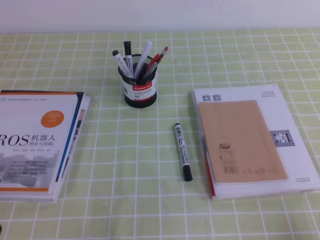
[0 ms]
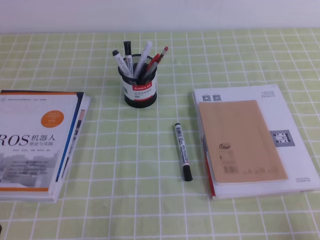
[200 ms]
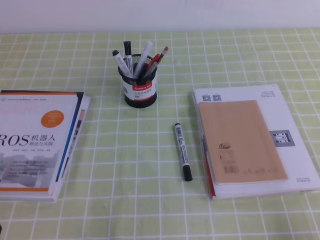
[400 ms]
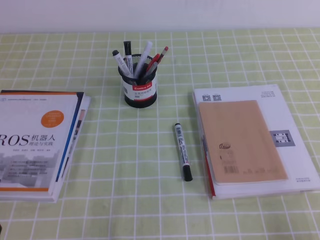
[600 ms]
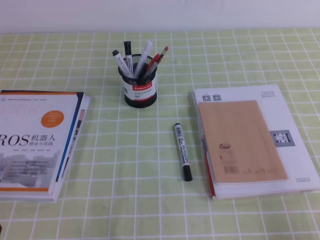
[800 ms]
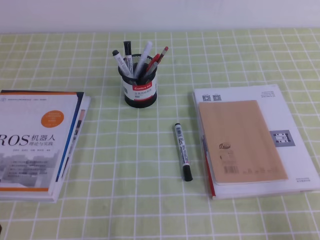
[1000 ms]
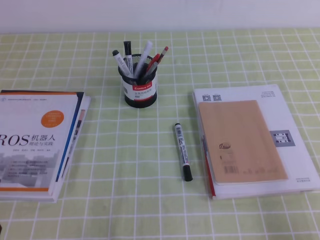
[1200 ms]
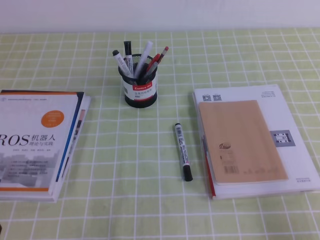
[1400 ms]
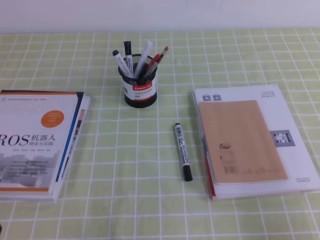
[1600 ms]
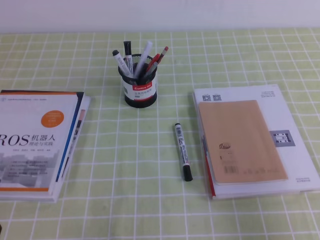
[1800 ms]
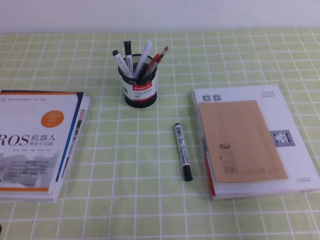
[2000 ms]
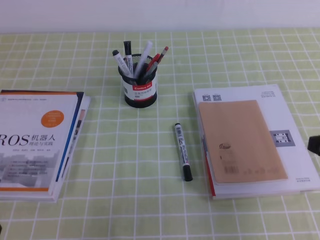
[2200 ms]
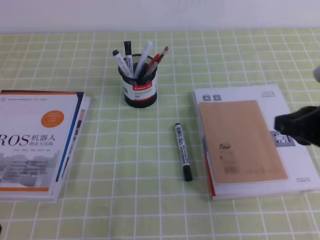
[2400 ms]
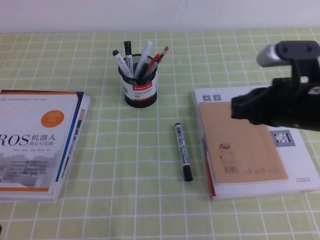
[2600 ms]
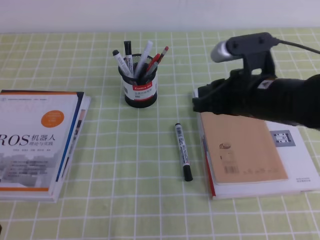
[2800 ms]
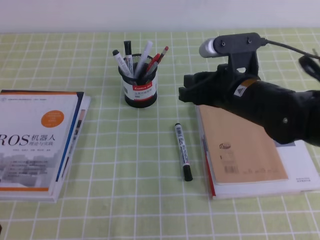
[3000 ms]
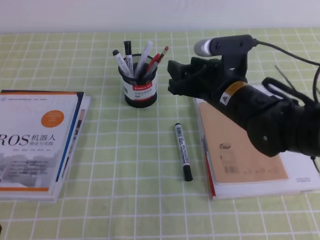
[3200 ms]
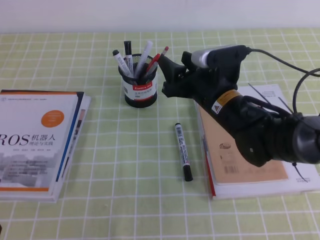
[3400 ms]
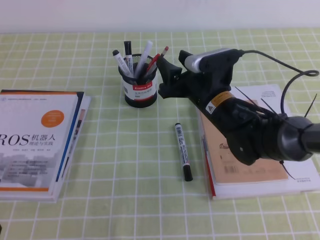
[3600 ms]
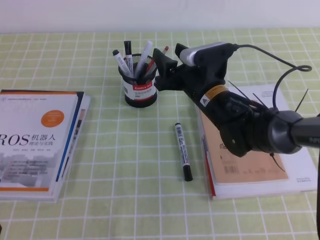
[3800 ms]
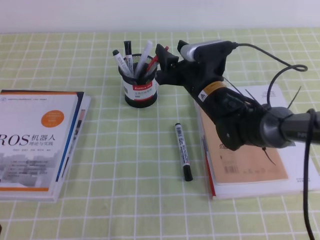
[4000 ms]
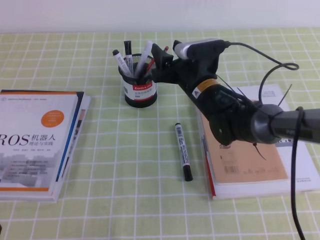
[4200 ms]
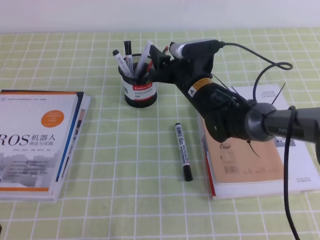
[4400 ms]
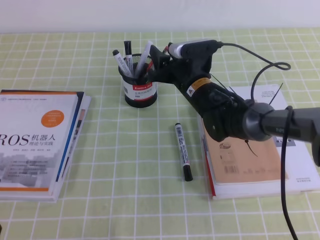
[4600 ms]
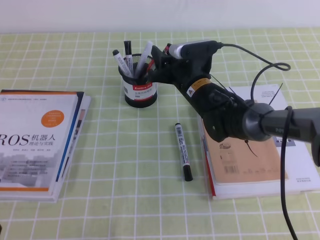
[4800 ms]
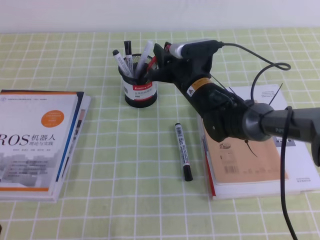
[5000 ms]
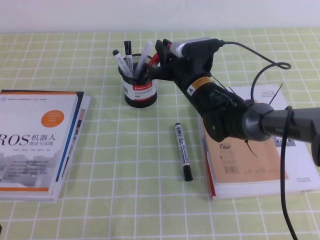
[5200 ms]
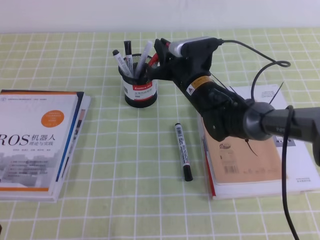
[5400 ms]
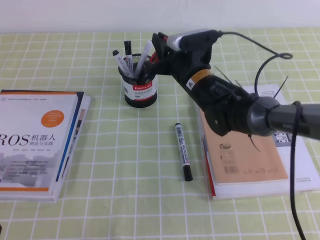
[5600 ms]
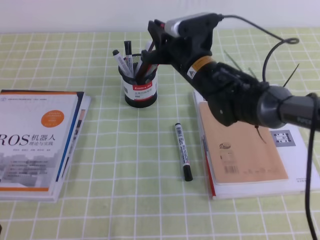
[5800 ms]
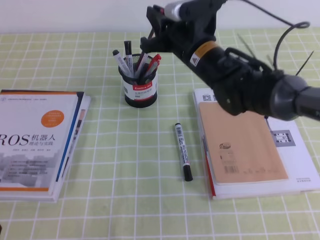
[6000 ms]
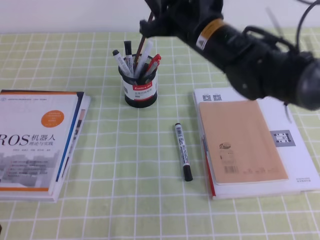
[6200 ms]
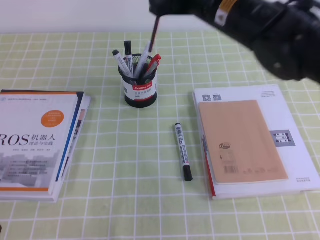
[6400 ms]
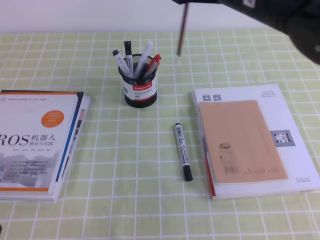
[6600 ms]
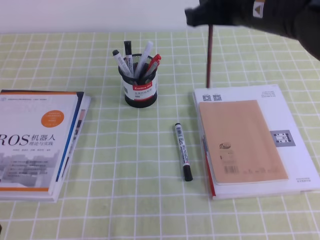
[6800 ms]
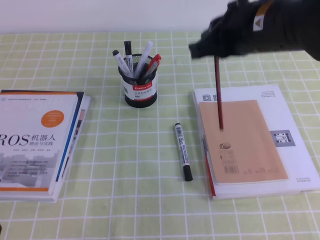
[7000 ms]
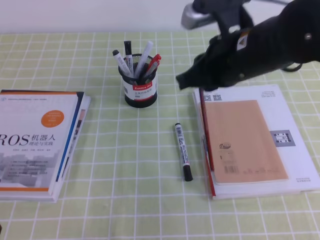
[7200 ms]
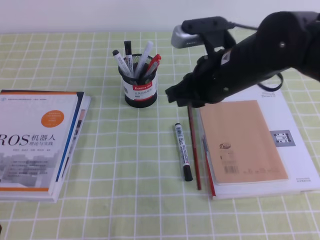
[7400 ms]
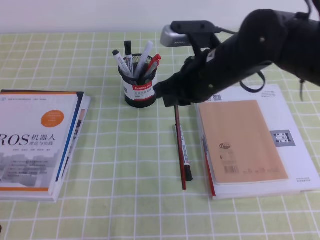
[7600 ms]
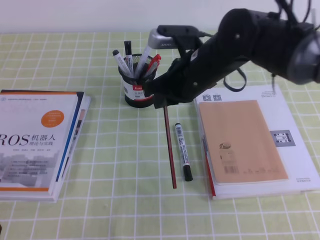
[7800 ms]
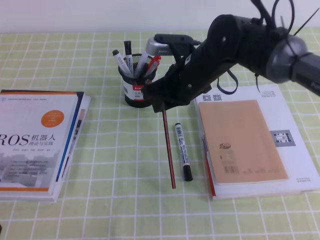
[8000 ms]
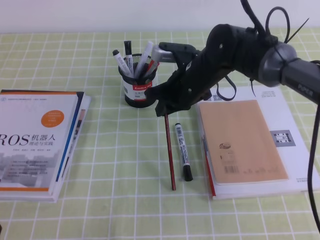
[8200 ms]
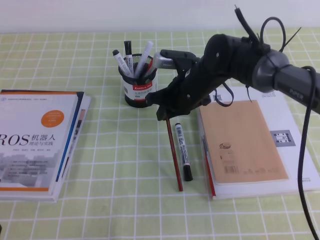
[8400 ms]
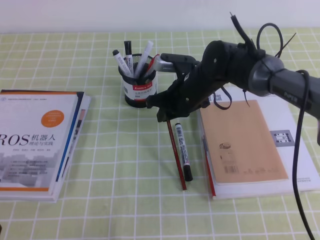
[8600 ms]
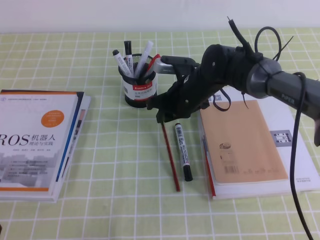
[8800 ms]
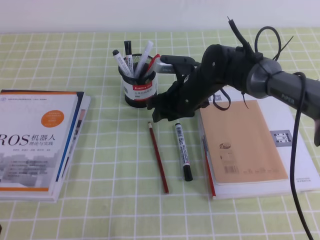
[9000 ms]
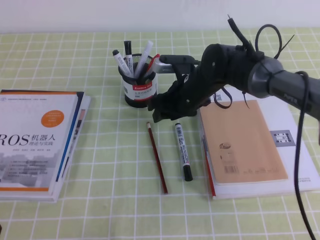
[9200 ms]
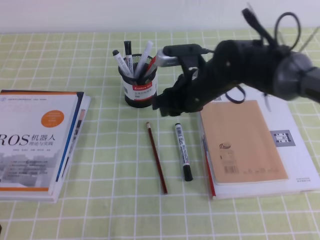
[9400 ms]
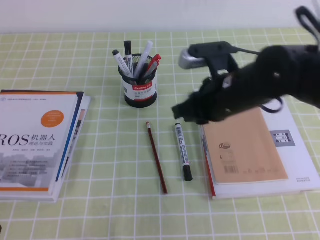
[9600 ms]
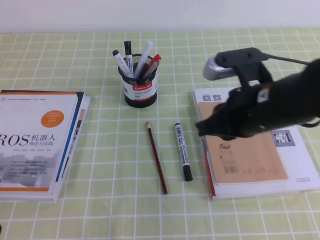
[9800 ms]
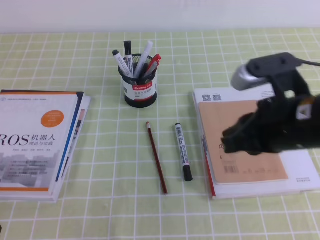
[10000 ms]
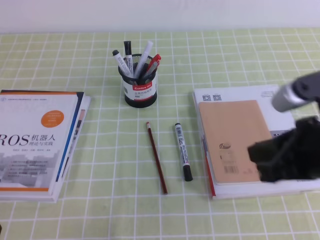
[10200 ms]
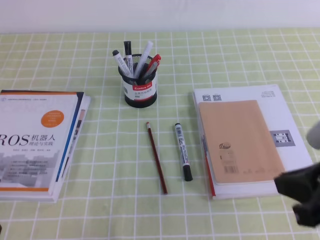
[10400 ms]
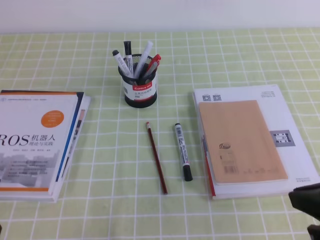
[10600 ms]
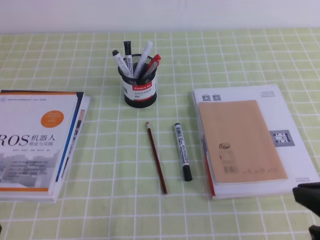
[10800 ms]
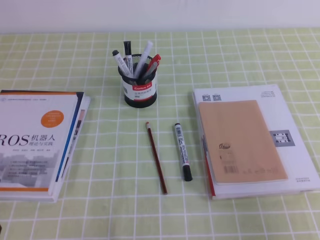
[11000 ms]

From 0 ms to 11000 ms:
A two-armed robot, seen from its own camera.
From 1600 ms to 3200 ms: The right gripper moves forward and to the left, roughly 35 cm, and opens its fingers.
From 3200 ms to 4800 ms: The right gripper heads forward, downward and to the left, covering approximately 10 cm.
From 4800 ms to 6200 ms: The right gripper moves upward, roughly 15 cm, and closes up.
From 7800 ms to 9400 ms: The right gripper shifts some 5 cm downward, and opens up.
From 9400 ms to 11000 ms: The right gripper moves backward and to the right, about 35 cm, and closes.

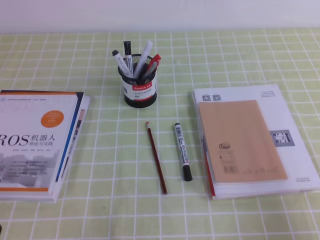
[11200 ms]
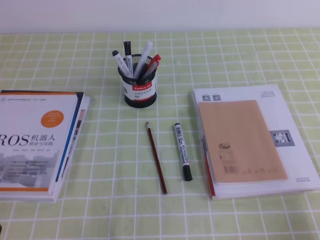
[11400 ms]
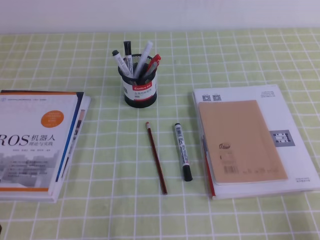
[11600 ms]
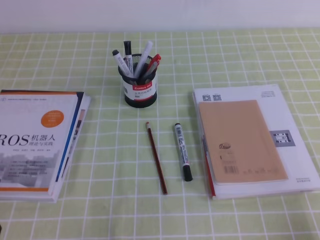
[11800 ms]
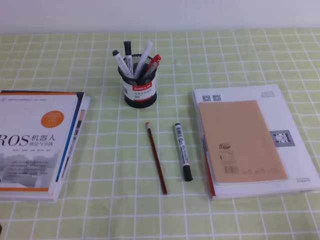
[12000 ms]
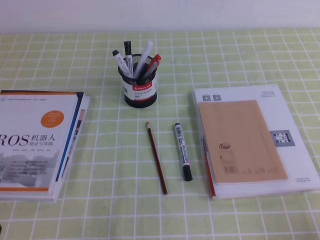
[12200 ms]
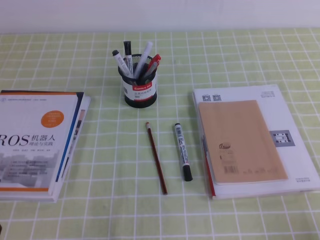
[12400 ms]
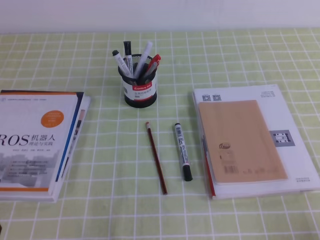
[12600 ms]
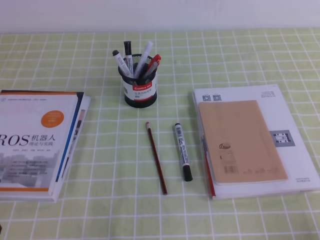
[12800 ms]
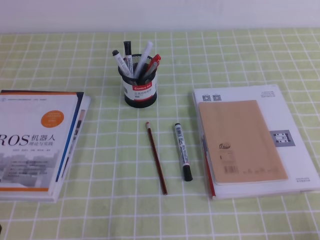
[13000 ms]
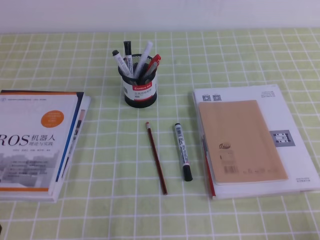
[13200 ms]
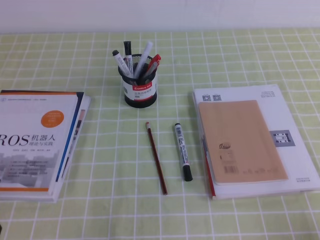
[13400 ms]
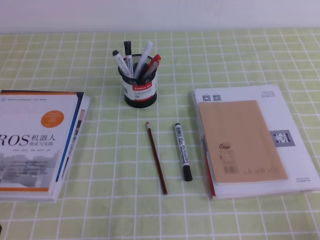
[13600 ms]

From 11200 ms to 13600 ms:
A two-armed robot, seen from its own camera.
From 12400 ms to 13600 ms: The two grippers keep their place.

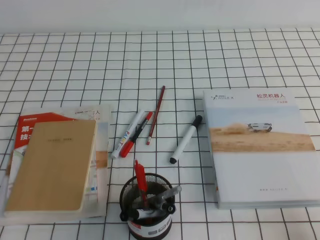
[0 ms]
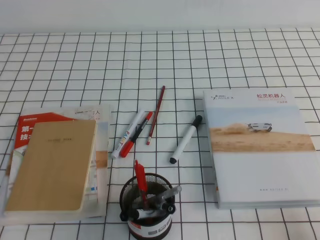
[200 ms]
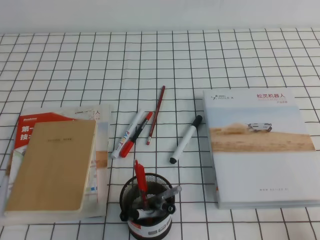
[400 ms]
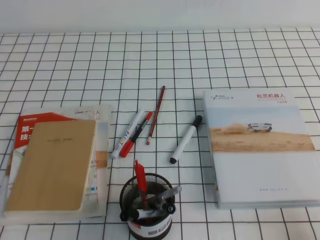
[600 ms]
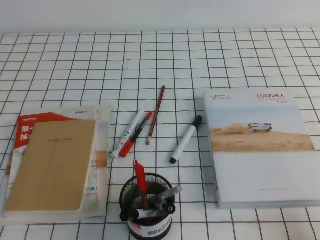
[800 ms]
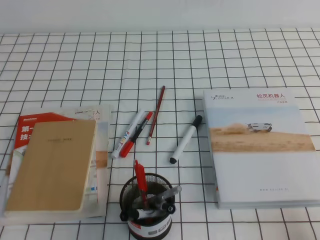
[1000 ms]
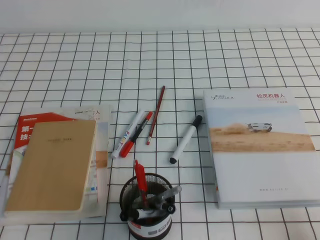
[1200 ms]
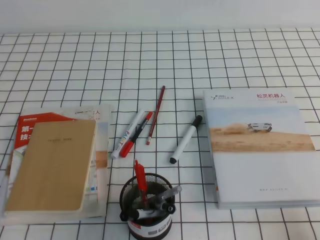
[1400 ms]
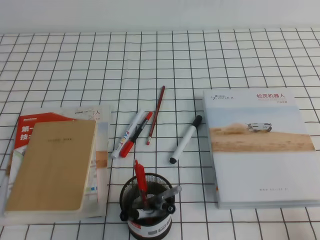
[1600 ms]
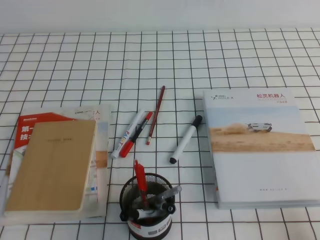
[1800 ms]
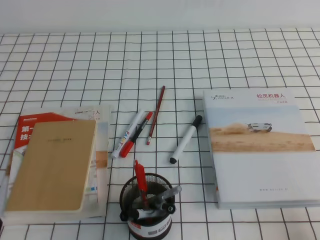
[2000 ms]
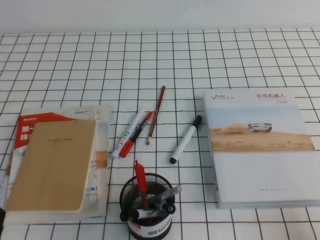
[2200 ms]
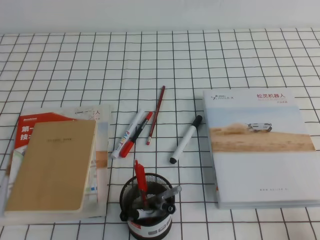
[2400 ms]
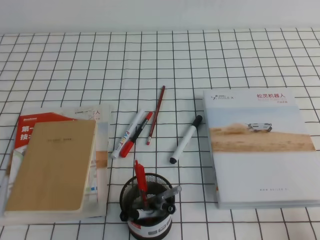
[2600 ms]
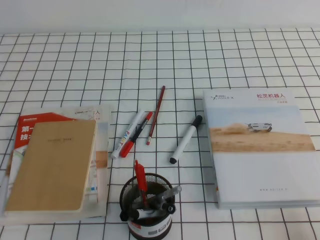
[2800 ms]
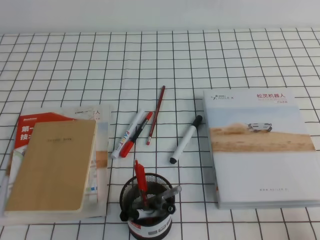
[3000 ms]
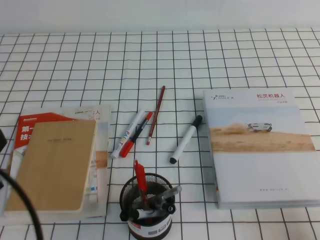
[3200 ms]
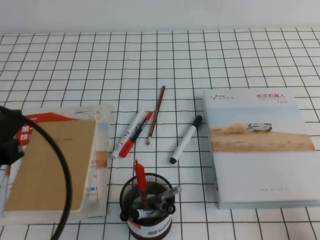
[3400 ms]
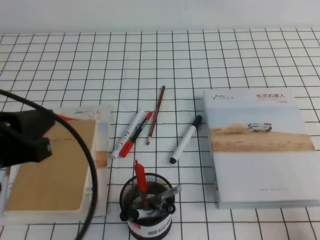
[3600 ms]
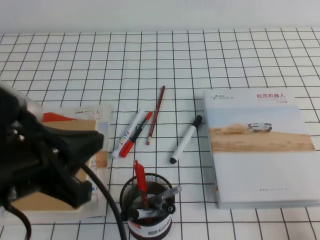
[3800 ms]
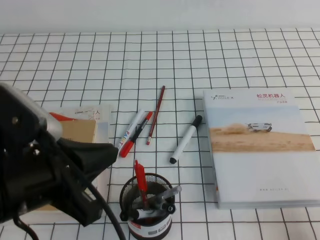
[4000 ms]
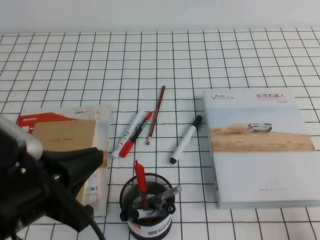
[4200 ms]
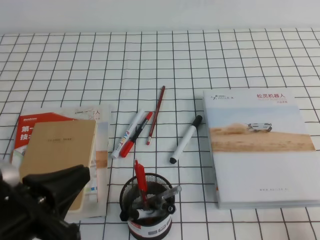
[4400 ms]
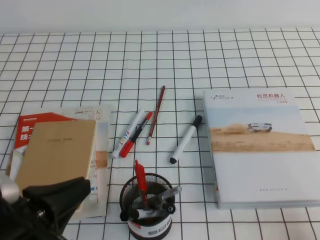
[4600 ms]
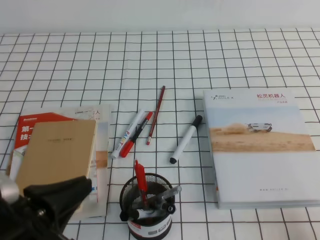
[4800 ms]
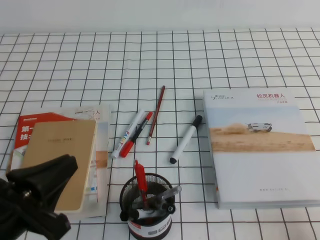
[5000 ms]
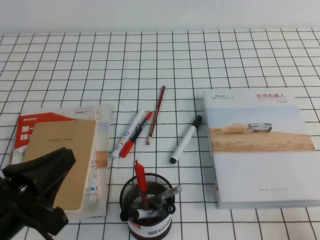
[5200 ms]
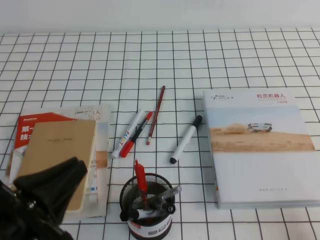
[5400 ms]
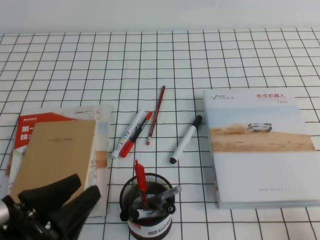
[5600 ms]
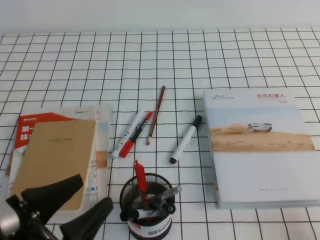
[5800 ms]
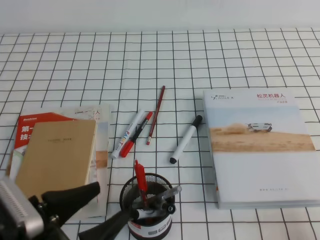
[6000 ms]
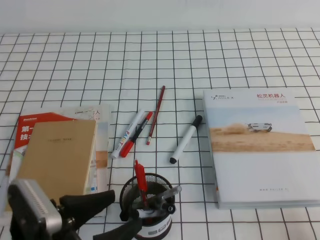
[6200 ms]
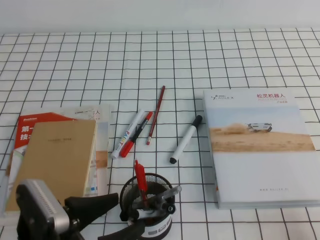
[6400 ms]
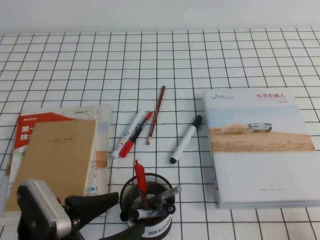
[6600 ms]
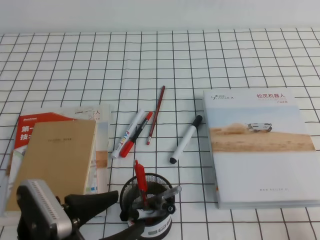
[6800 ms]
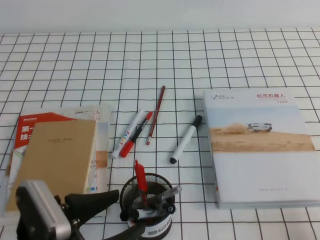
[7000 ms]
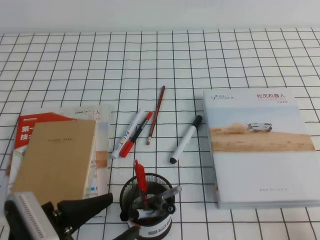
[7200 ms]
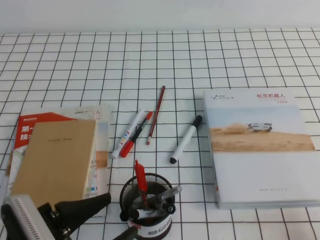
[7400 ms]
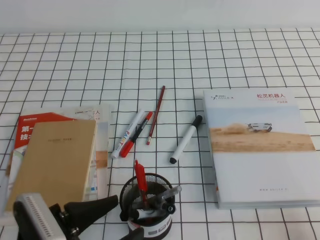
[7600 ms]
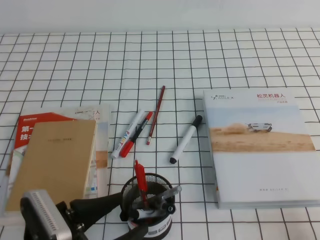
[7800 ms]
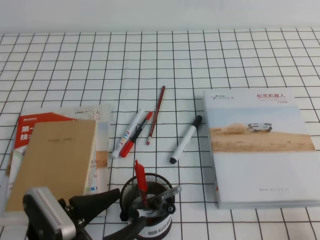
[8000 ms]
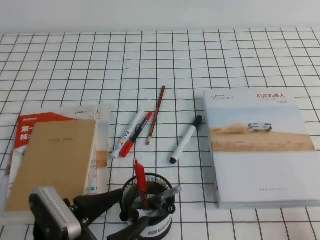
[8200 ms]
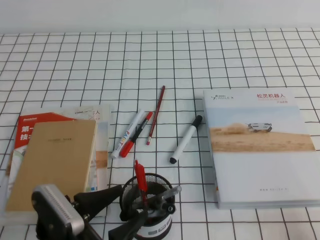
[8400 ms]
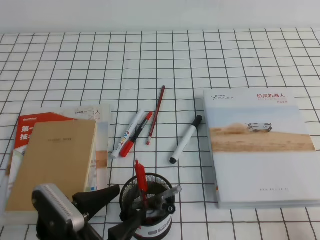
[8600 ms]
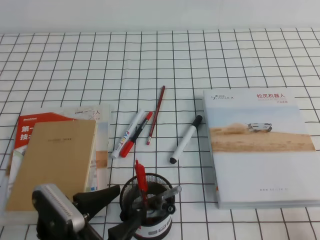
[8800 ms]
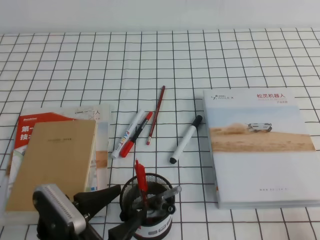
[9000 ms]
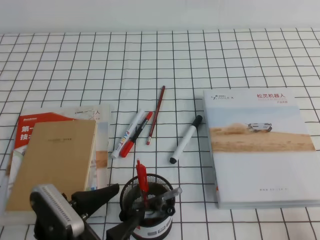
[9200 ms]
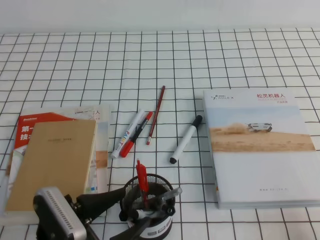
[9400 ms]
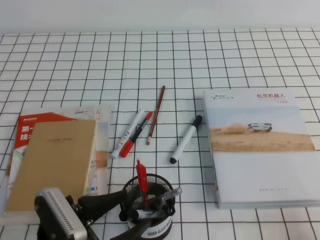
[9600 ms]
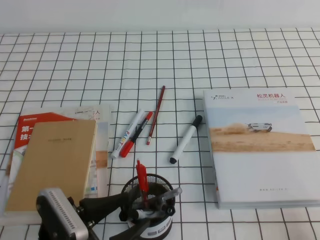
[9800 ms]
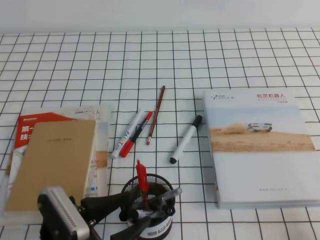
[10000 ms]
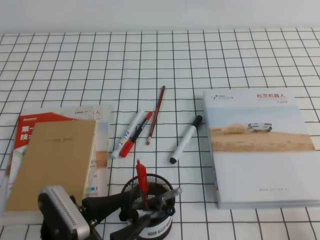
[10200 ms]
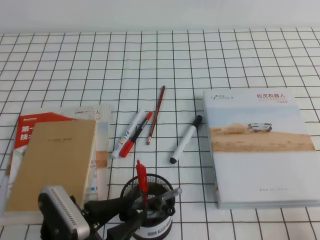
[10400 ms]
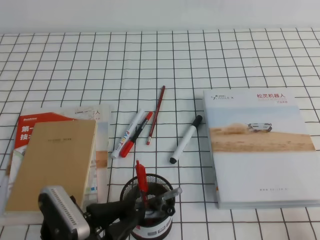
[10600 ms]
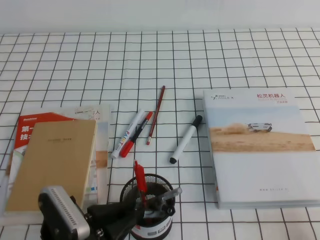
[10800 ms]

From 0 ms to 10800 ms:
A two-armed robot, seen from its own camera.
From 0 ms to 1600 ms: Both grippers stay about where they are.
From 3000 ms to 4600 ms: The left gripper heads to the right, covering approximately 5 cm.
From 4600 ms to 6200 ms: The left gripper shifts roughly 5 cm downward, and opens its fingers.
From 6200 ms to 7800 ms: The grippers move only a little.
From 7800 ms to 9200 ms: The grippers move only a little.
From 9200 ms to 10800 ms: The left gripper closes up.
